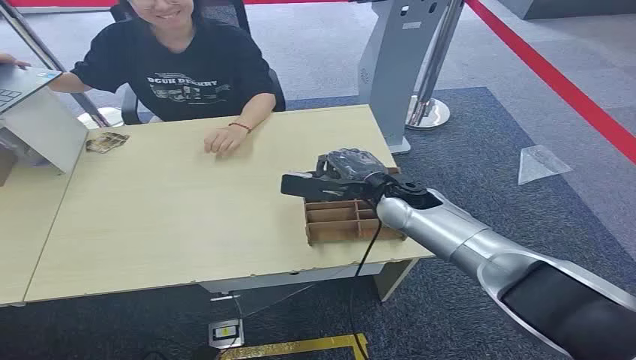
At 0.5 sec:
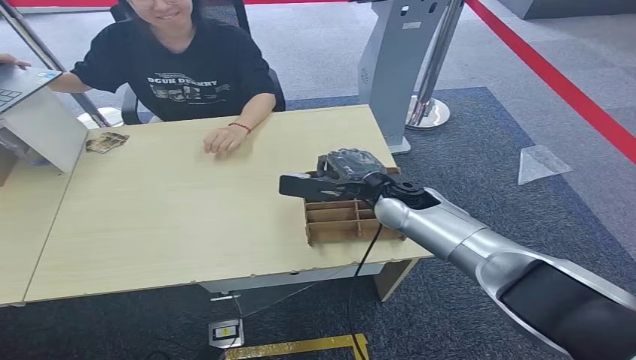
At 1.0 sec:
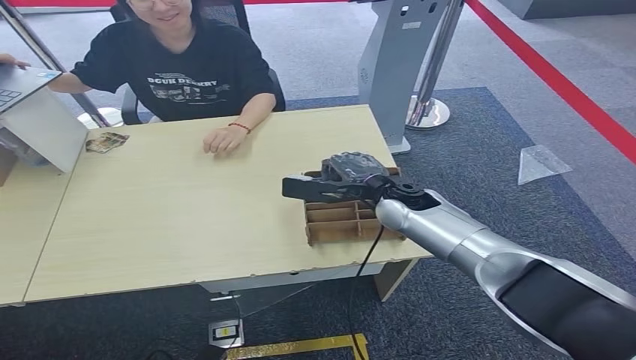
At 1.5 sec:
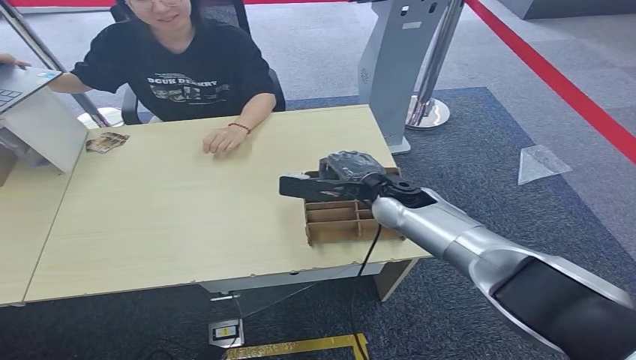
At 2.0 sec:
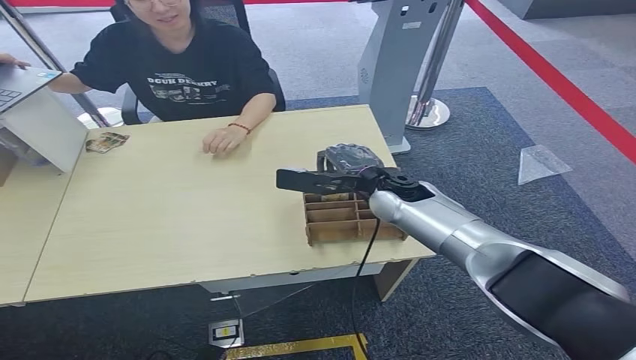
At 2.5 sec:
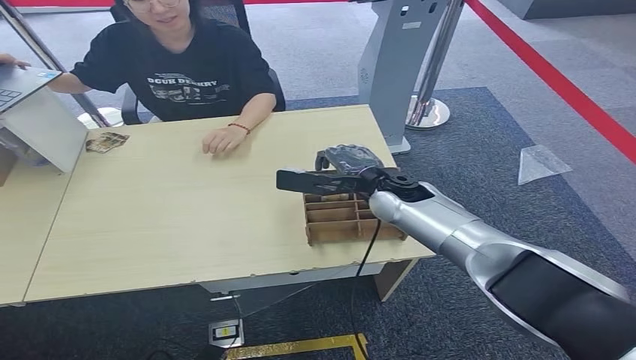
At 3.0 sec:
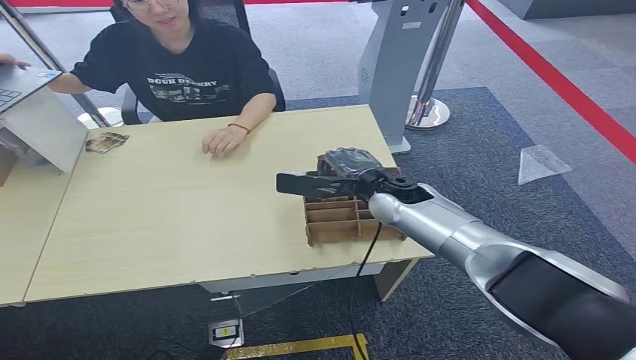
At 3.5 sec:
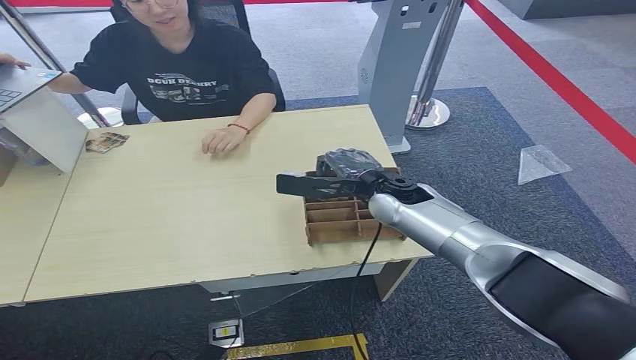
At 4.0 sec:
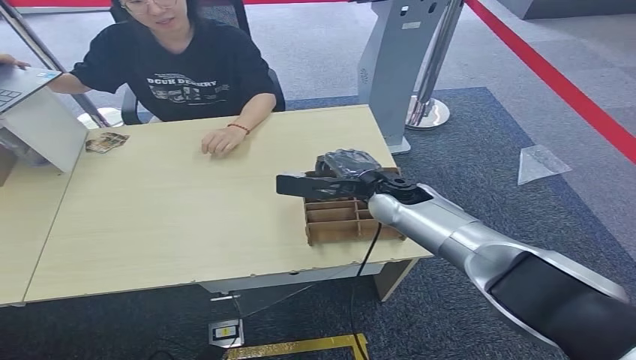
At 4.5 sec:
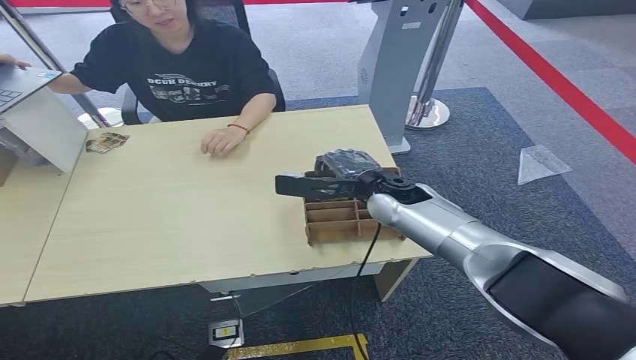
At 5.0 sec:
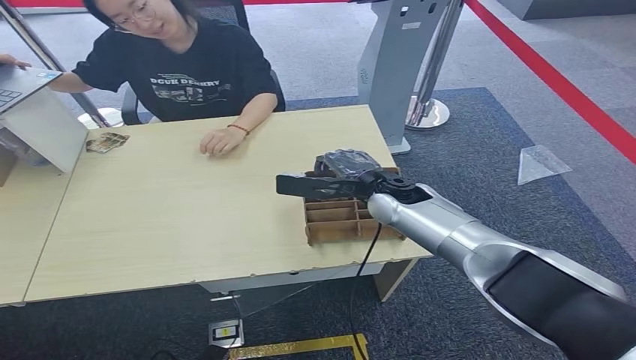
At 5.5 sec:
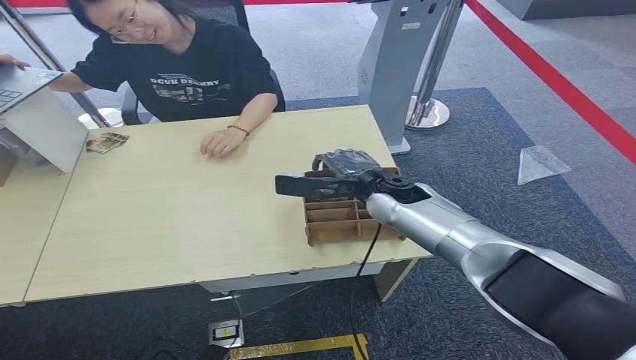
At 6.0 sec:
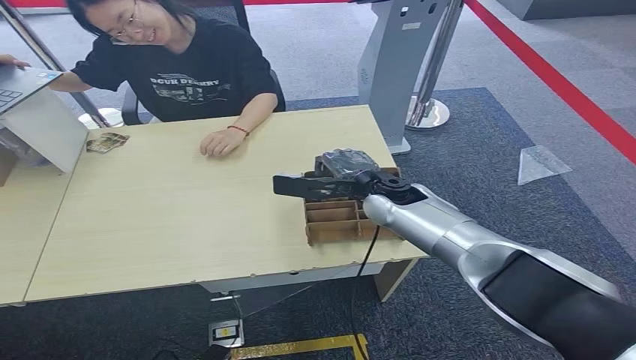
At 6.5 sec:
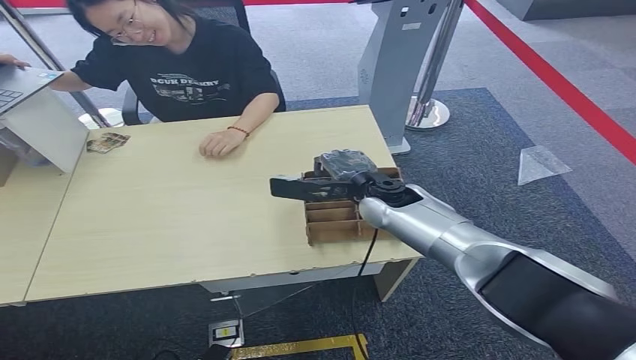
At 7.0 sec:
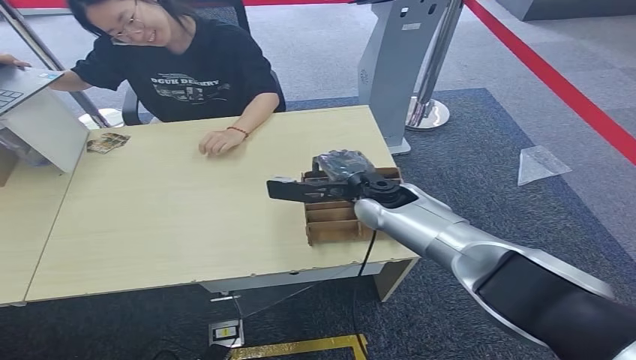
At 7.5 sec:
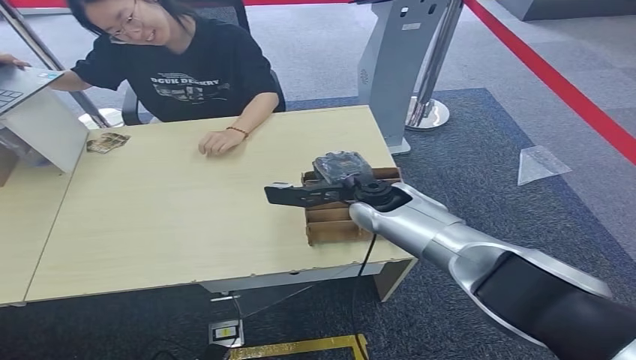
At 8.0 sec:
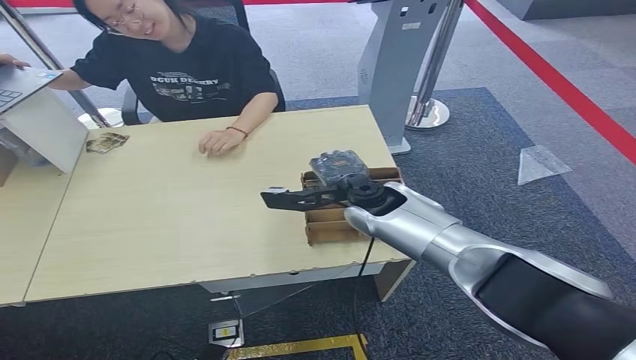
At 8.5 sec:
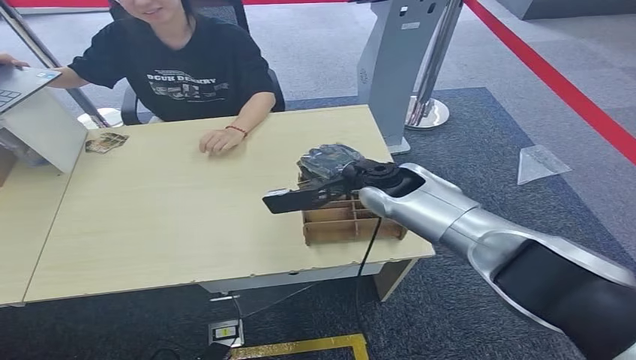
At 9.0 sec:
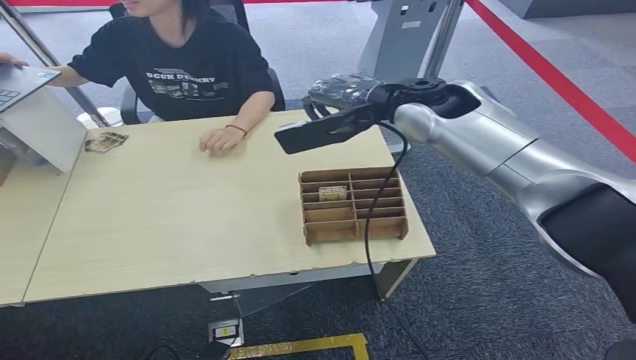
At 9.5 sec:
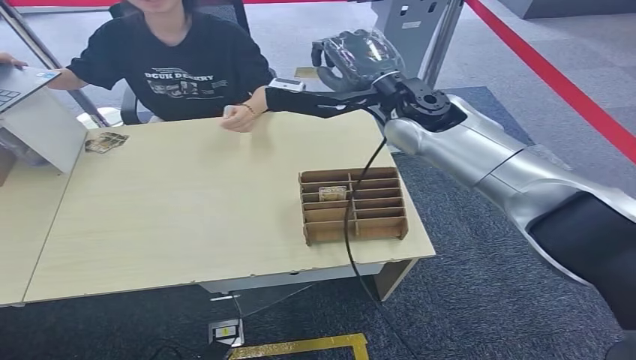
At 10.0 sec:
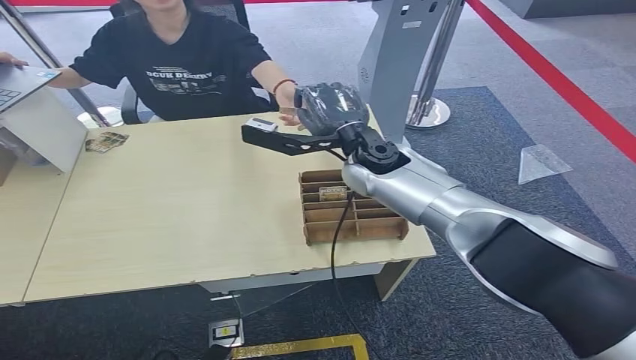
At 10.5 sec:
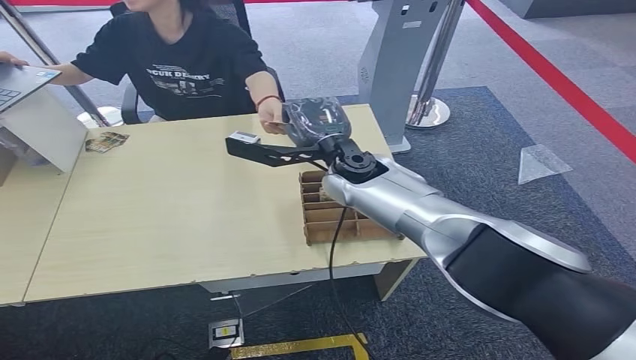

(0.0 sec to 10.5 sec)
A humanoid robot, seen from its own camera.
Task of the whole recording: Pick up the card and hand it over to the target person.
Step, 0.0 sec - 9.0 sec: Pick up the key card from the card box.
Step, 9.5 sec - 10.5 sec: Hand the key card to the target.
2.0 sec - 6.5 sec: The hands make only small movements.
6.5 sec - 8.5 sec: The right hand goes approximately 15 cm upward.
8.5 sec - 10.5 sec: The right hand heads to the left, covering roughly 10 cm, and goes upward and returns, about 10 cm each way.
